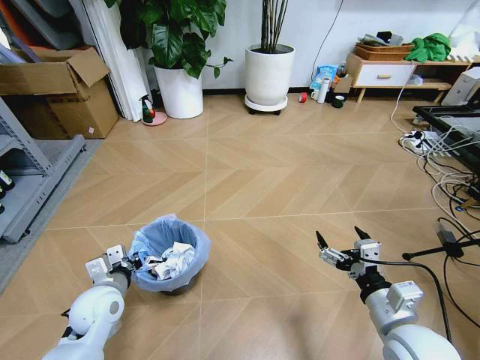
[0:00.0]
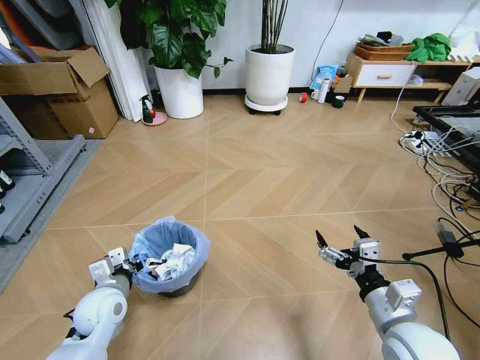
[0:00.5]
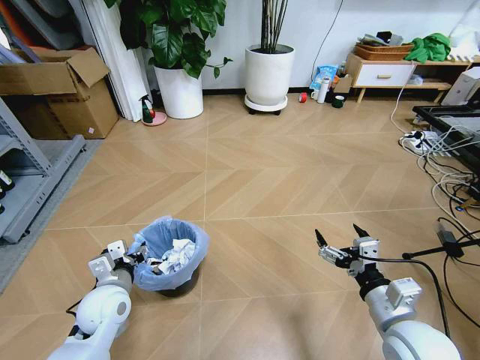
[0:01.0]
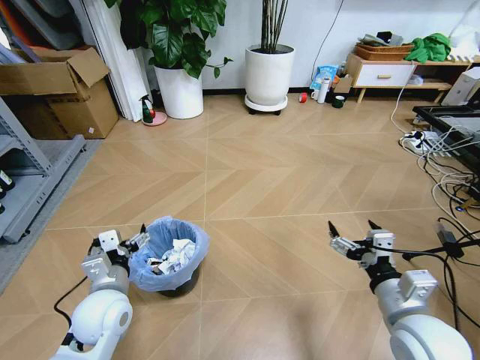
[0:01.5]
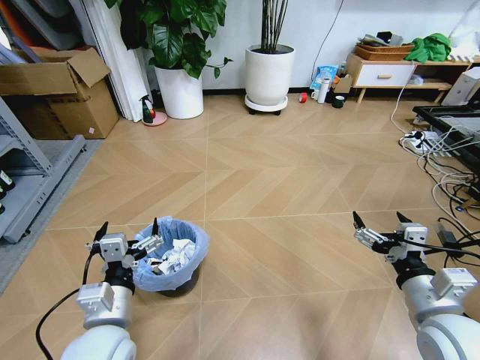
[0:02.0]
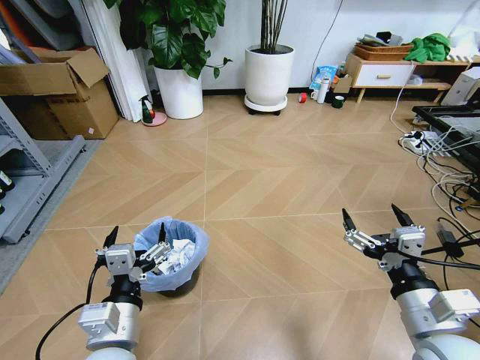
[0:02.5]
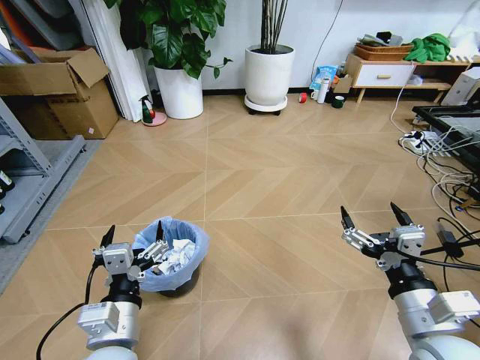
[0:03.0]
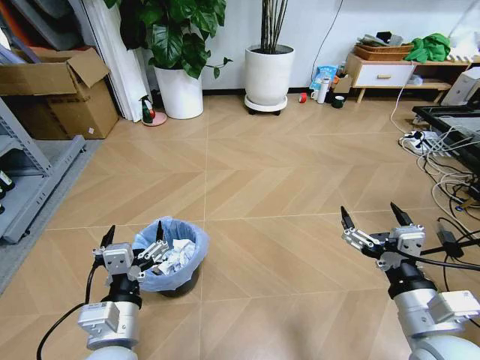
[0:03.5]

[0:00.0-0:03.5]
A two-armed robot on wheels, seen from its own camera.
Task of the whole recording: Pick up the trash bin and place the garbage on the floor into it.
0:00.0 to 0:02.0: The left gripper shifts roughly 15 cm backward, to the right and upward, and opens. Meanwhile the right gripper shifts by roughly 5 cm.
0:02.0 to 0:03.5: The right gripper ends up about 5 cm from where it was.
